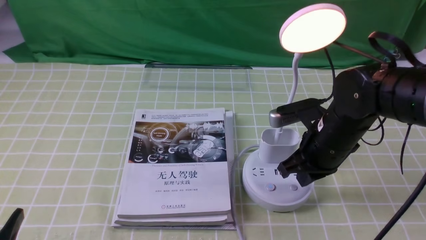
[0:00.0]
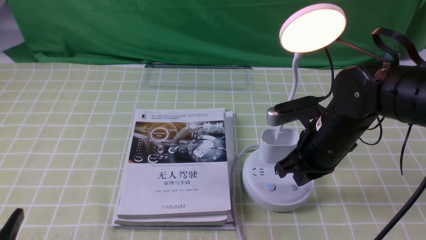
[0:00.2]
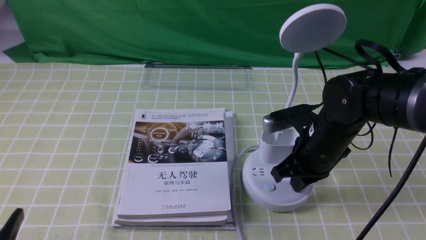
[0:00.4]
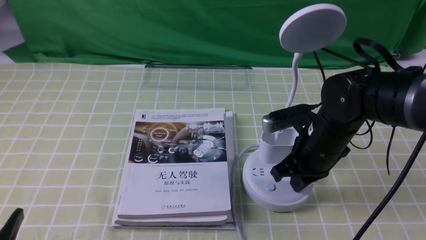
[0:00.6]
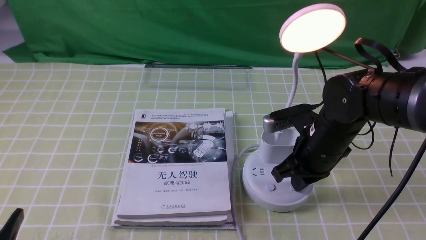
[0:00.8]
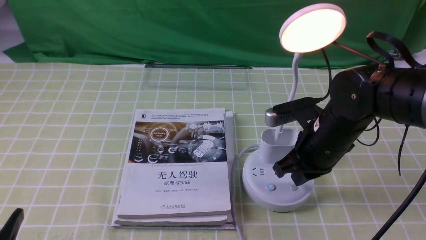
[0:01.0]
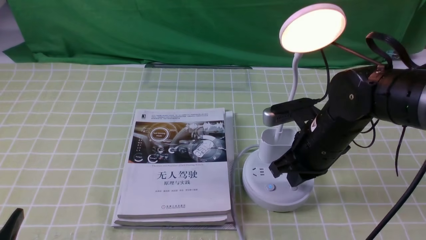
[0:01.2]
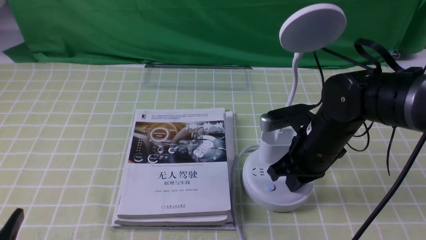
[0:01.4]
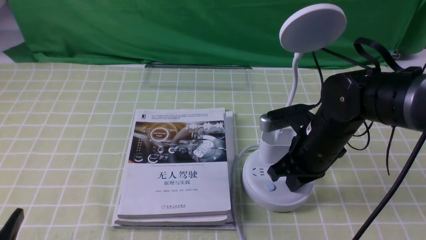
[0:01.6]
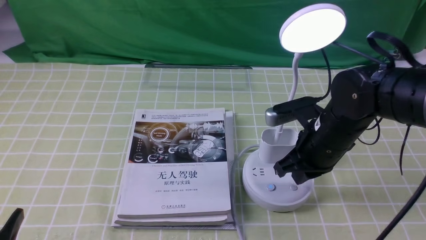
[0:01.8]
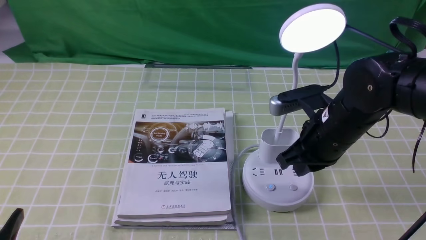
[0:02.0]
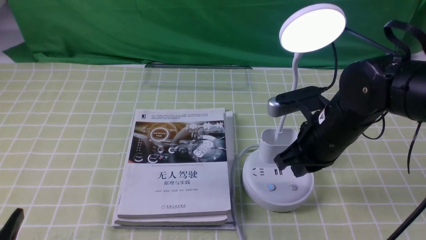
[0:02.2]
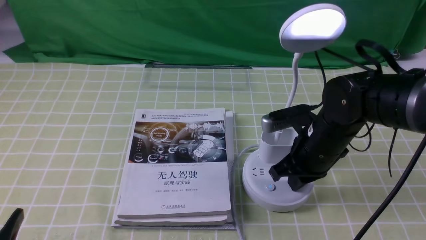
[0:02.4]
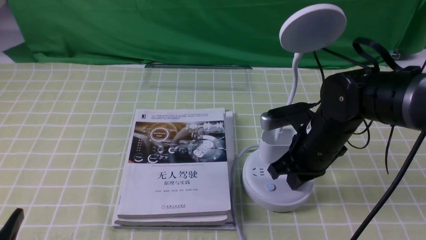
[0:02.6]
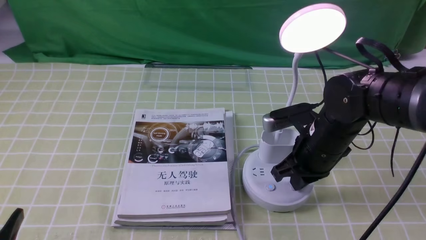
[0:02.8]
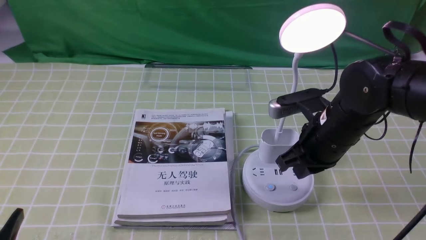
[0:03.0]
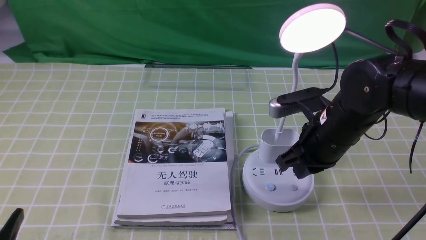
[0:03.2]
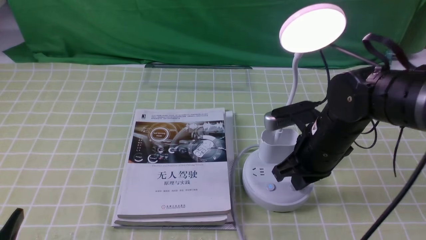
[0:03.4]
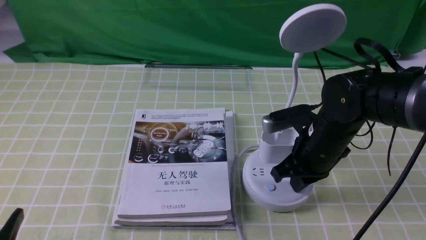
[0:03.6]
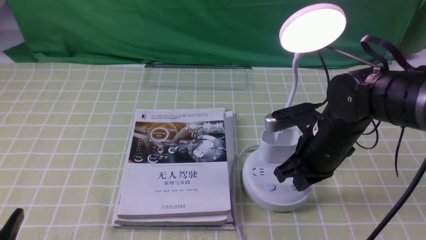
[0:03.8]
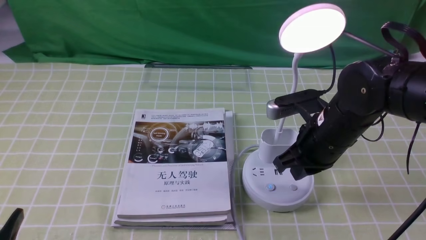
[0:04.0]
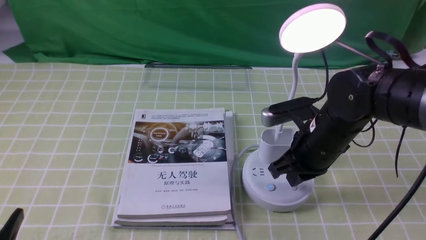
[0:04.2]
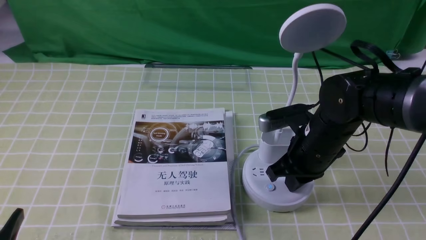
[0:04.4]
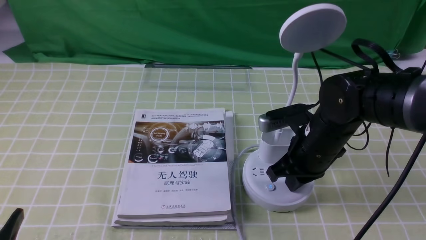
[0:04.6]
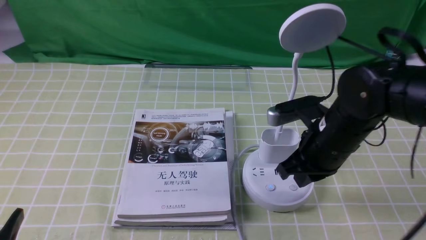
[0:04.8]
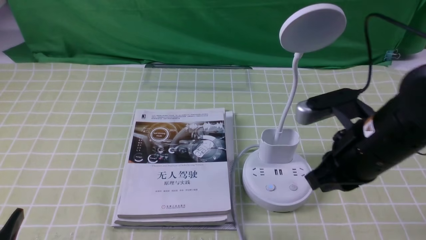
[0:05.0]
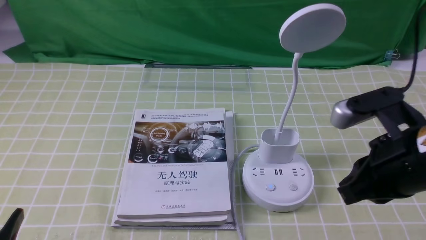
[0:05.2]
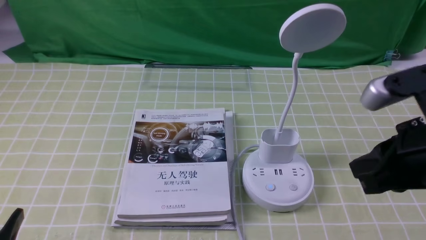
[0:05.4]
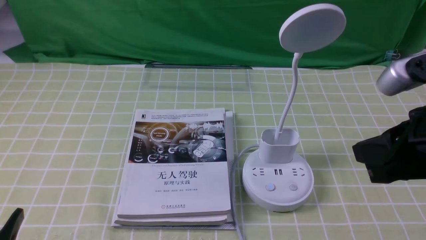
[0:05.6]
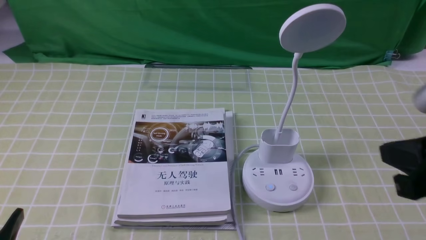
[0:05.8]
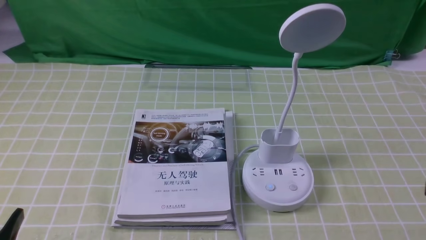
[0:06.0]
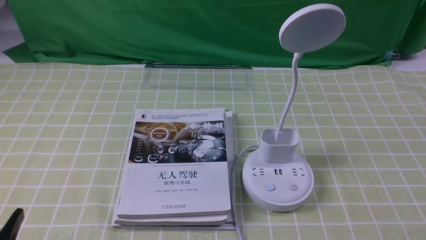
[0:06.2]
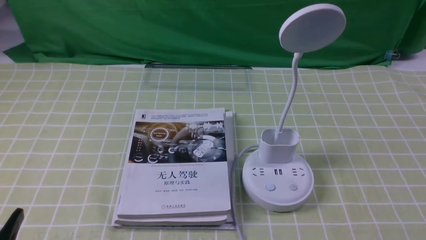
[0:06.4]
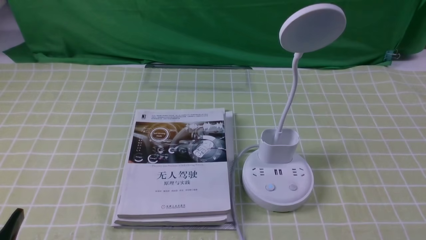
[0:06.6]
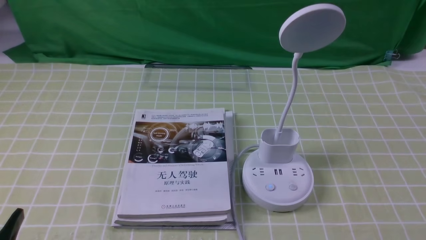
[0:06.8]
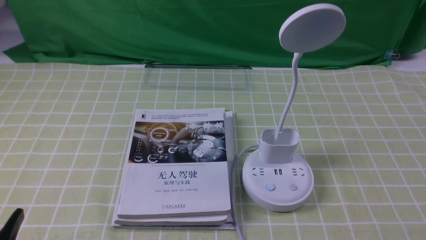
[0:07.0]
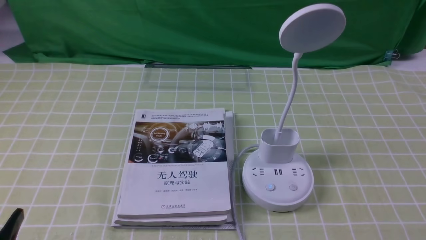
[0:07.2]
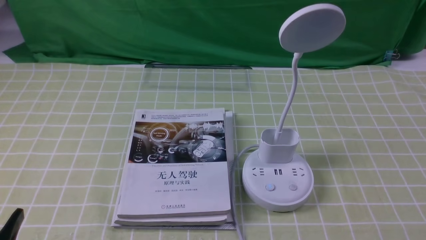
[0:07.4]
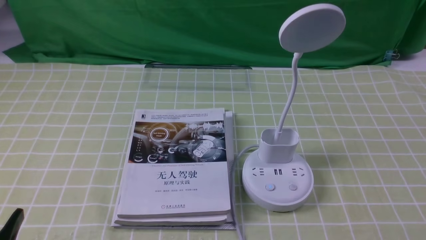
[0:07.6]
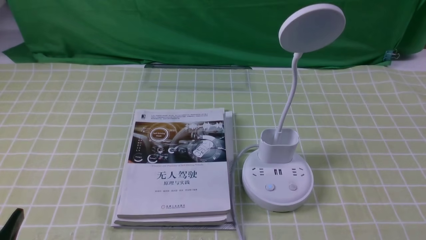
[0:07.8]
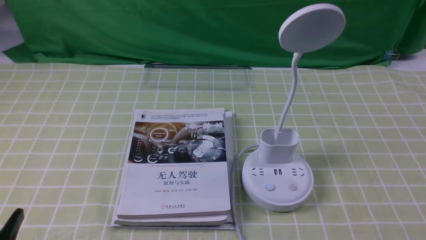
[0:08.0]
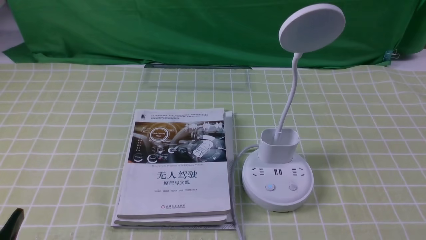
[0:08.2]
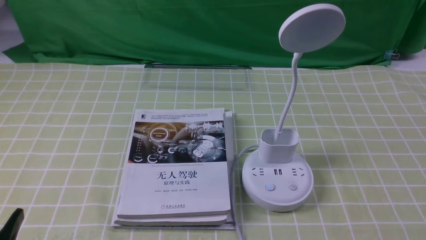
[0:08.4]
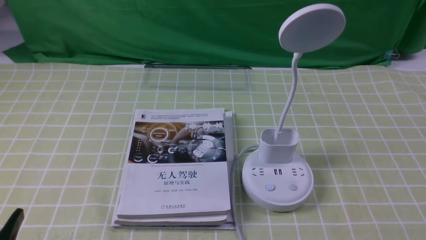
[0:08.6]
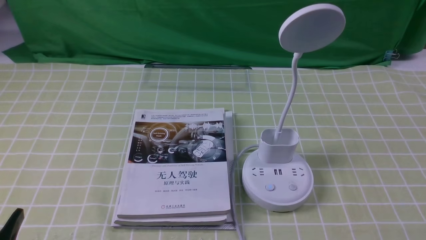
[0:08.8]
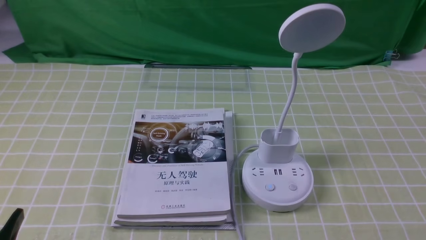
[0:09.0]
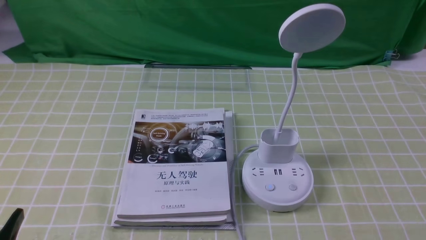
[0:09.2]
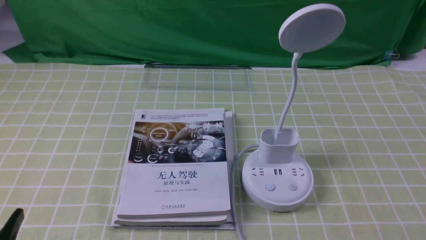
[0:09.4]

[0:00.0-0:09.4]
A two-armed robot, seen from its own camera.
Task of the whole recording: turn off the desk lamp on the green coffee tablecloth by hand.
Step, 0:00.0 to 0:04.8: use the right arm to press the button switch on the lamp holder.
0:00.0 to 0:04.8: The grippers stay close to where they were, moving slightly.
0:04.8 to 0:06.2: The right gripper is displaced backward and to the right by approximately 25 cm.
0:07.8 to 0:09.4: The two grippers keep their place.

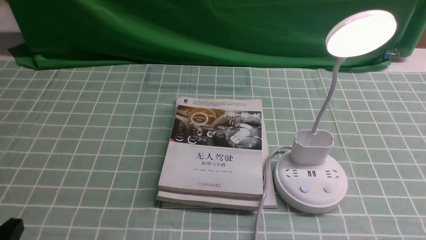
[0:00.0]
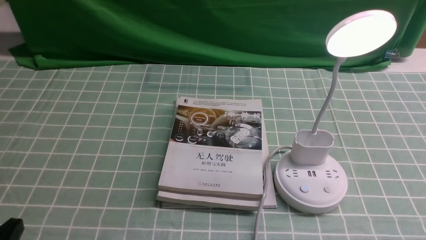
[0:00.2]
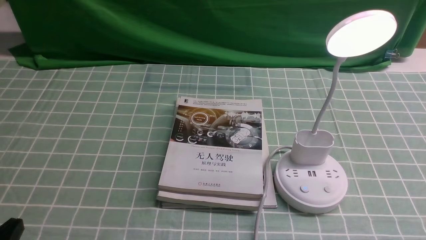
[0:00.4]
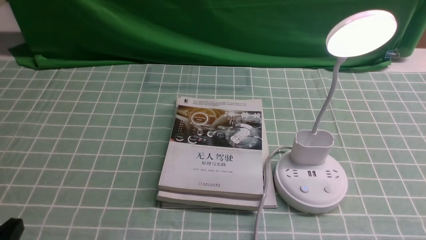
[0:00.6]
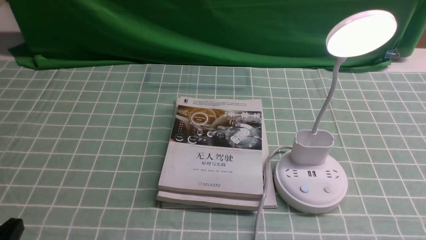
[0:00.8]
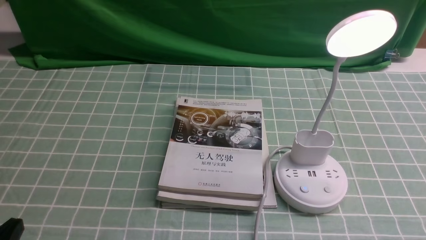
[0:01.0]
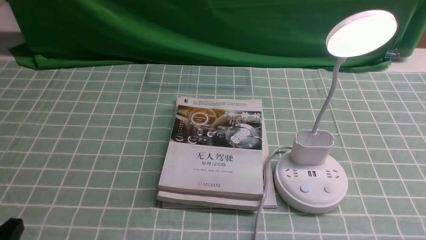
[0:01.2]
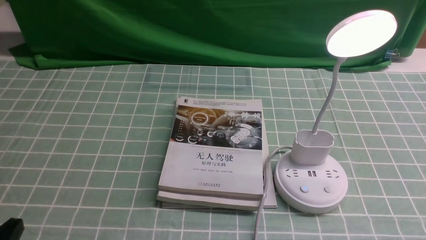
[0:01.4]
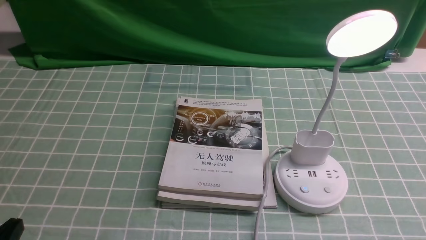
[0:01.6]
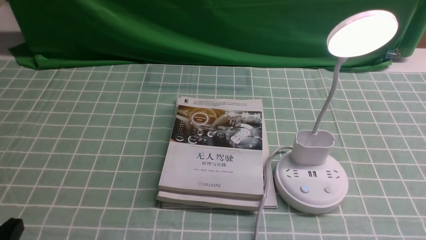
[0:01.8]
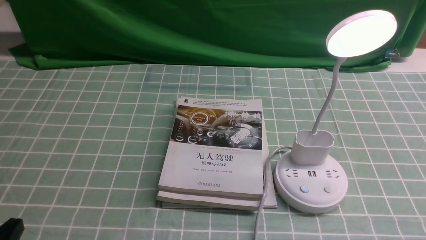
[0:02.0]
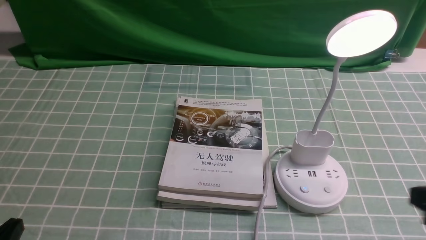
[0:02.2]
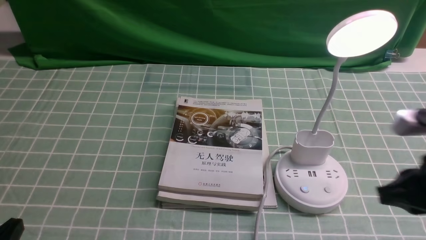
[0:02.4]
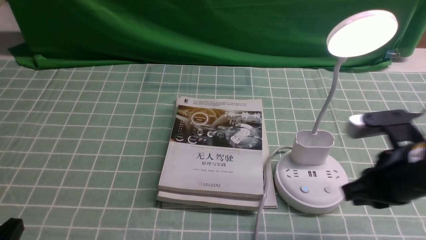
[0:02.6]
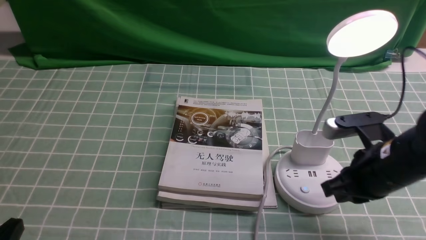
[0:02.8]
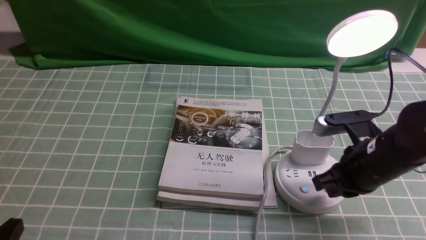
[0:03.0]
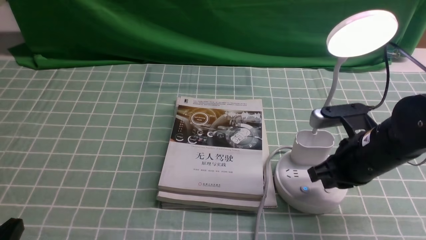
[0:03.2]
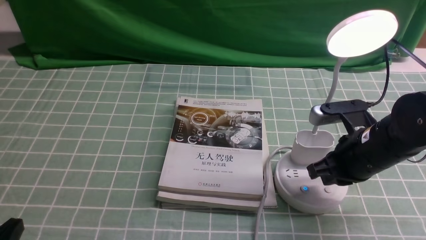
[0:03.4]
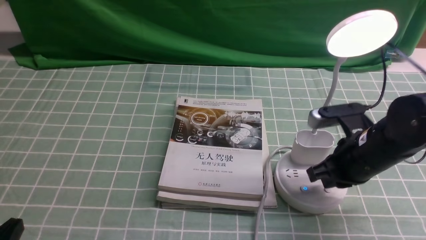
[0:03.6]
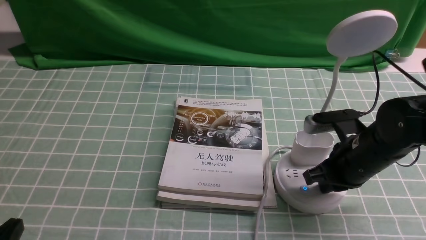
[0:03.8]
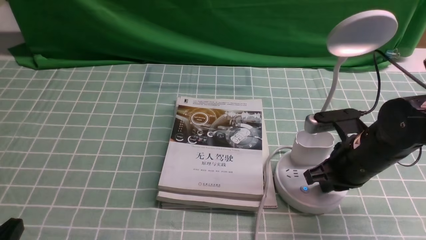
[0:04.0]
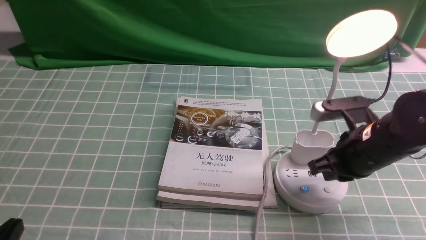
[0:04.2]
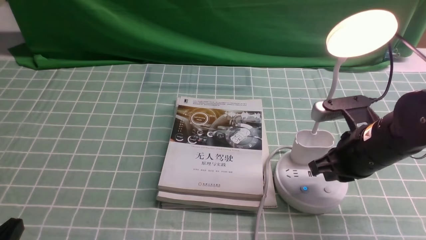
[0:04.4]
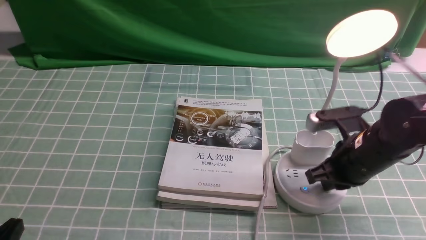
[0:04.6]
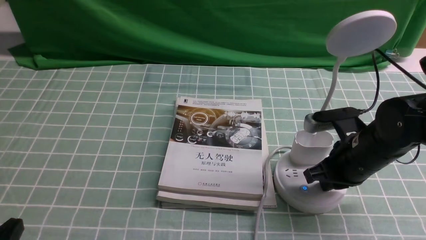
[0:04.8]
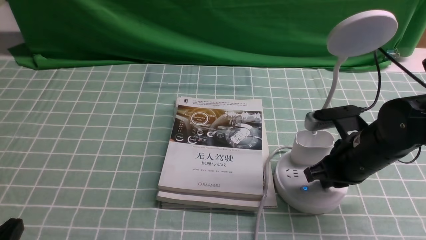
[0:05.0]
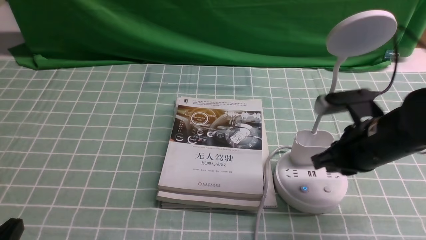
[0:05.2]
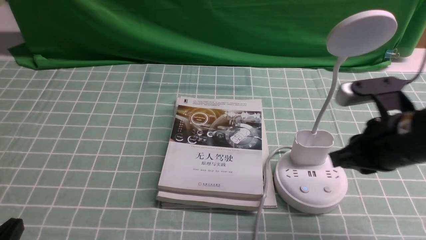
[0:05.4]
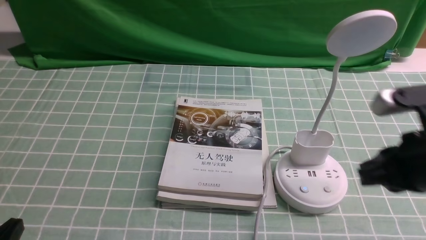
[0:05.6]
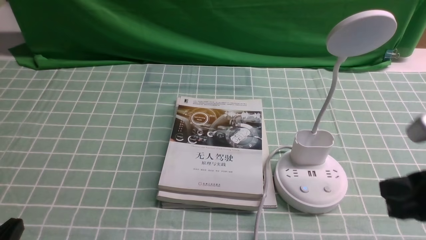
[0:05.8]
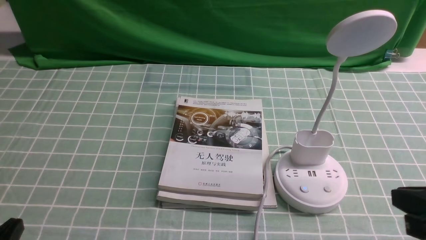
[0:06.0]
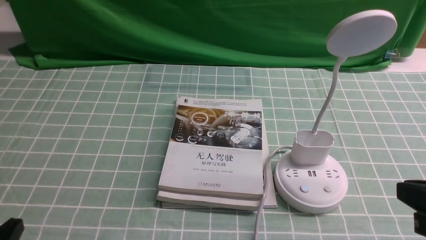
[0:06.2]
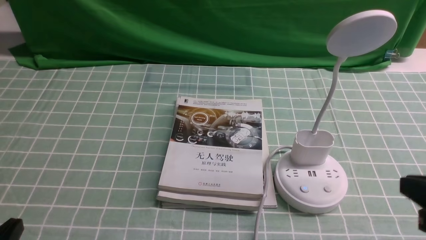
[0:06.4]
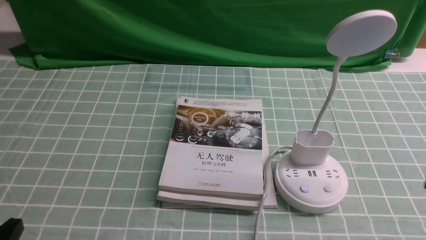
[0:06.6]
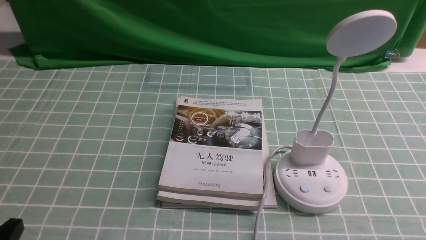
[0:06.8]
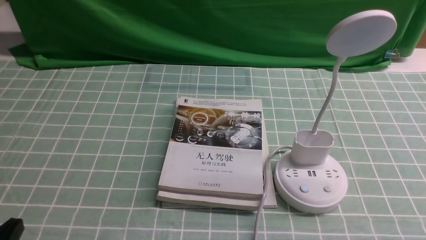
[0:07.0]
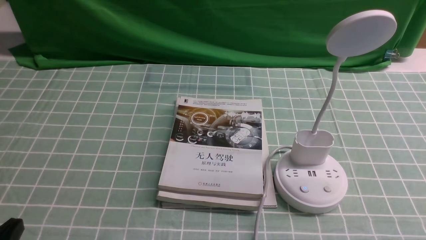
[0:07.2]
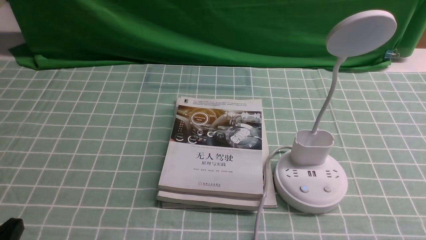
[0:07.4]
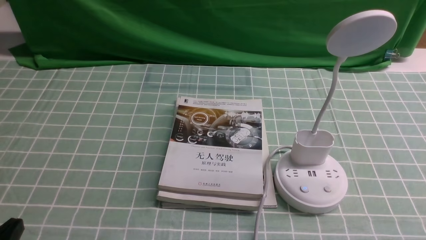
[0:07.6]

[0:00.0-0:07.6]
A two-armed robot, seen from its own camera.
Task of the whole recording: turn off the desk lamp on the blue coffee tablecloth by hand.
Step, 0:00.0 to 0:05.2: use the right arm to press the button switch on the lamp holder.
0:01.6 to 0:03.0: The right gripper shifts approximately 25 cm forward and to the left, and closes its fingers.
0:03.0 to 0:04.6: The grippers move only a little.
0:04.6 to 0:06.0: The right gripper moves backward and upward, approximately 20 cm.
0:06.0 to 0:07.6: The right gripper shifts some 10 cm downward and backward.
